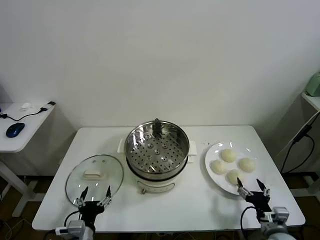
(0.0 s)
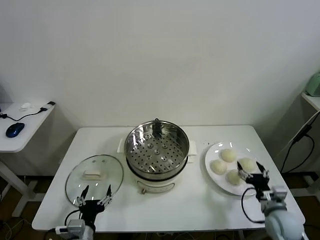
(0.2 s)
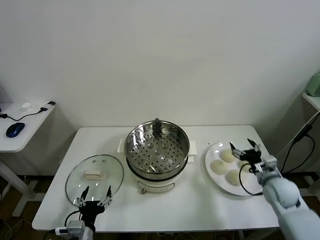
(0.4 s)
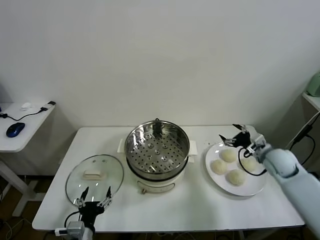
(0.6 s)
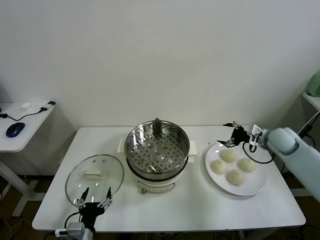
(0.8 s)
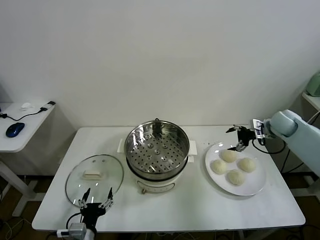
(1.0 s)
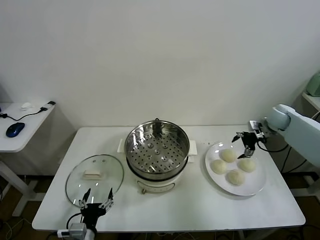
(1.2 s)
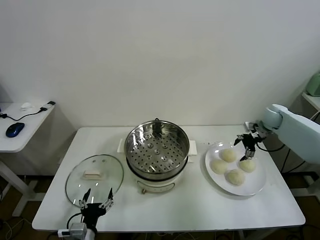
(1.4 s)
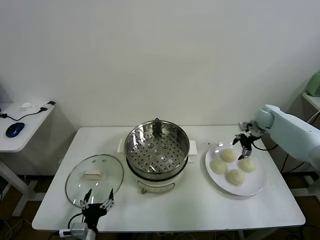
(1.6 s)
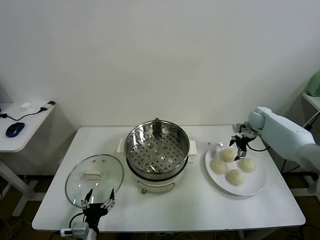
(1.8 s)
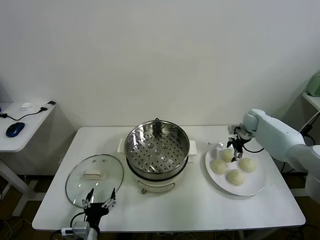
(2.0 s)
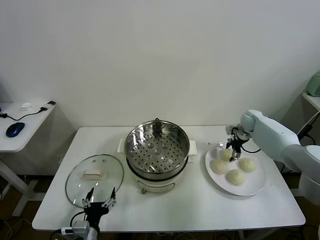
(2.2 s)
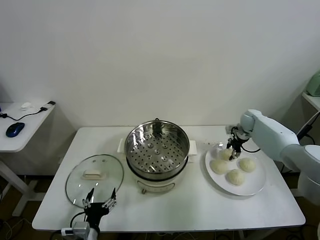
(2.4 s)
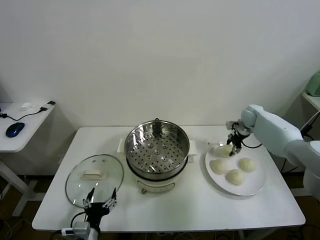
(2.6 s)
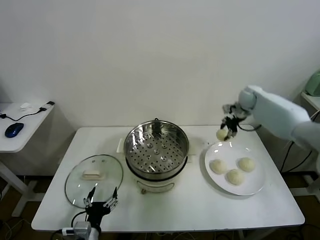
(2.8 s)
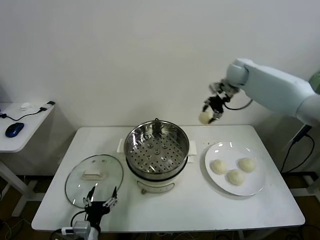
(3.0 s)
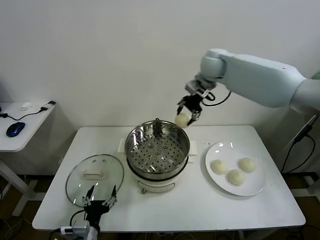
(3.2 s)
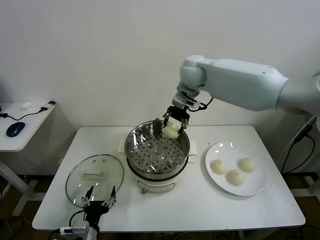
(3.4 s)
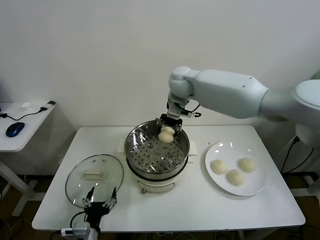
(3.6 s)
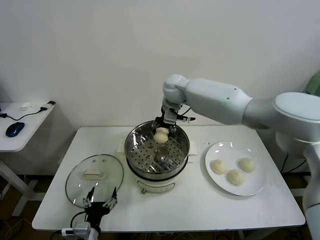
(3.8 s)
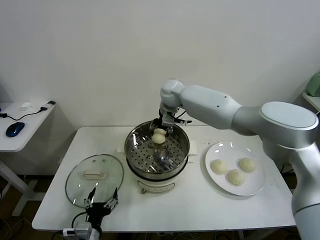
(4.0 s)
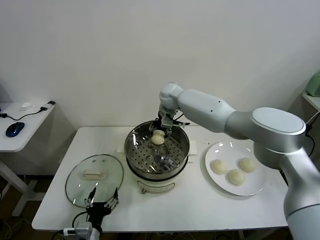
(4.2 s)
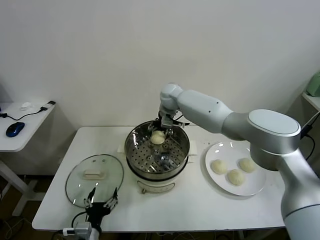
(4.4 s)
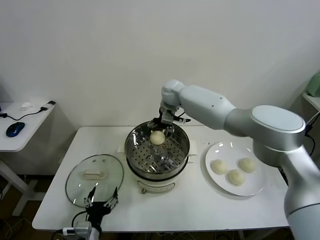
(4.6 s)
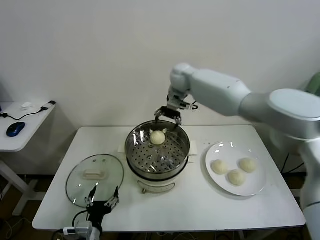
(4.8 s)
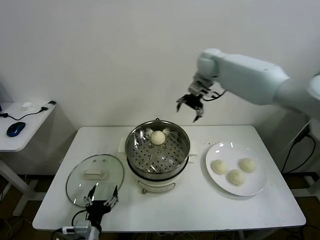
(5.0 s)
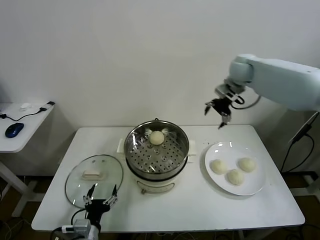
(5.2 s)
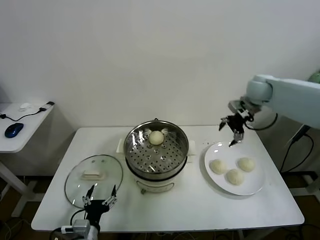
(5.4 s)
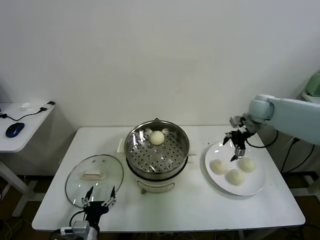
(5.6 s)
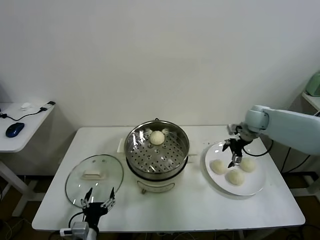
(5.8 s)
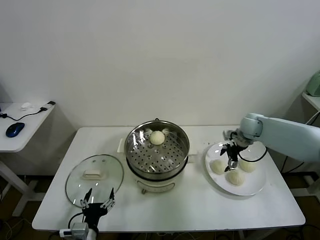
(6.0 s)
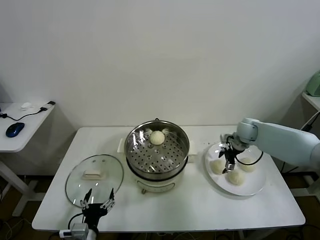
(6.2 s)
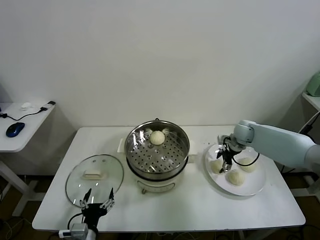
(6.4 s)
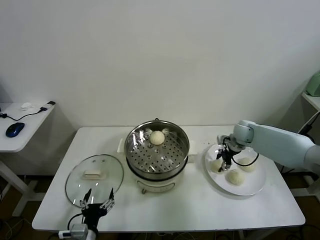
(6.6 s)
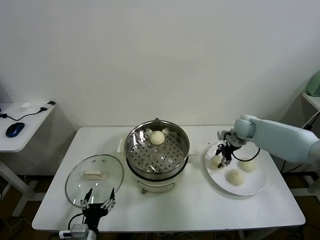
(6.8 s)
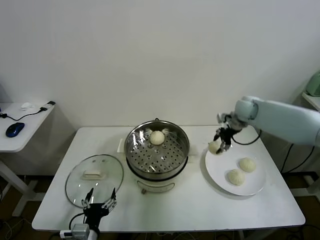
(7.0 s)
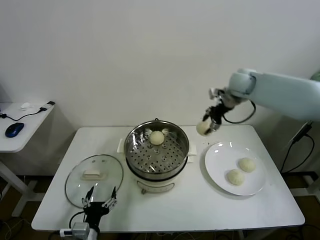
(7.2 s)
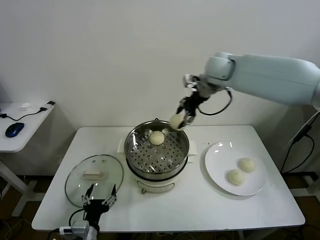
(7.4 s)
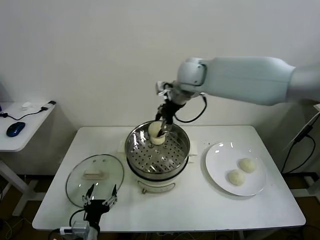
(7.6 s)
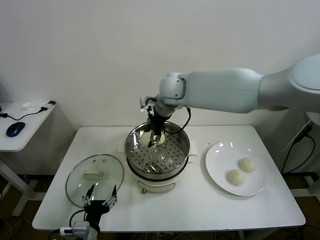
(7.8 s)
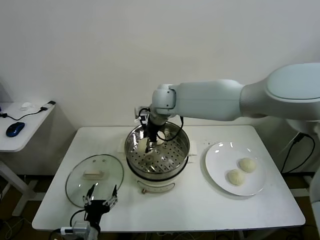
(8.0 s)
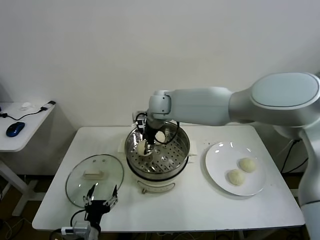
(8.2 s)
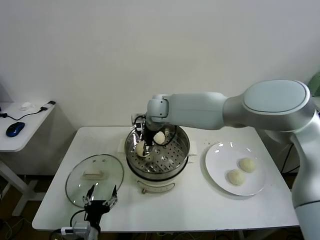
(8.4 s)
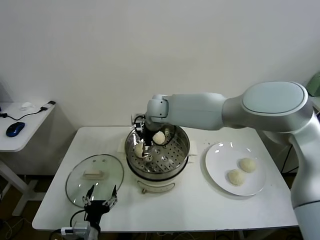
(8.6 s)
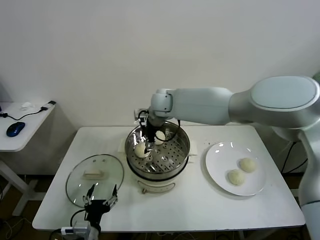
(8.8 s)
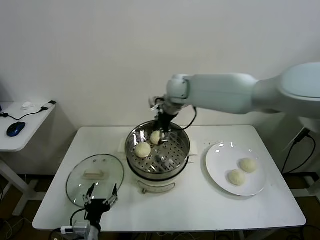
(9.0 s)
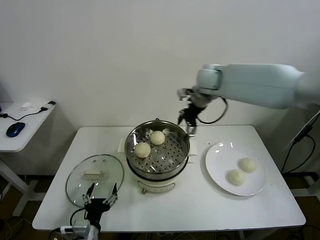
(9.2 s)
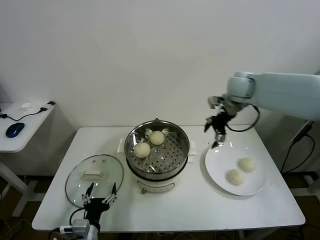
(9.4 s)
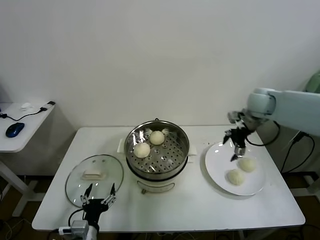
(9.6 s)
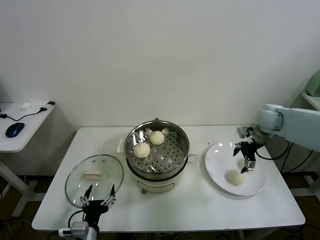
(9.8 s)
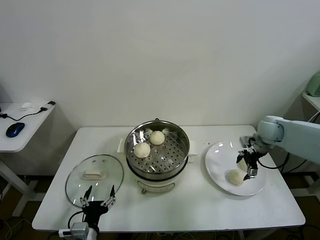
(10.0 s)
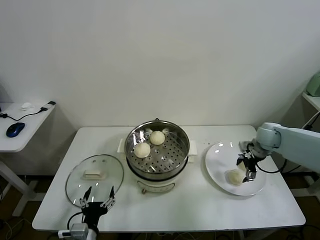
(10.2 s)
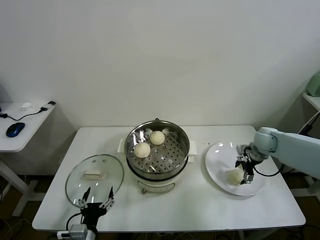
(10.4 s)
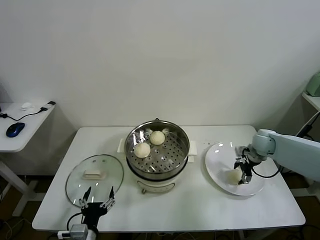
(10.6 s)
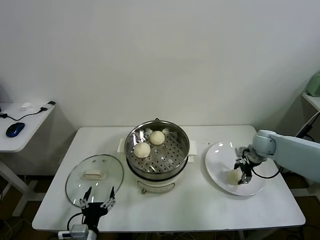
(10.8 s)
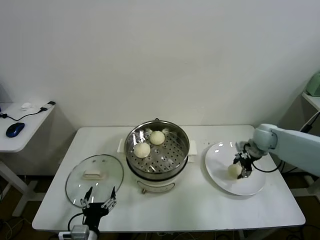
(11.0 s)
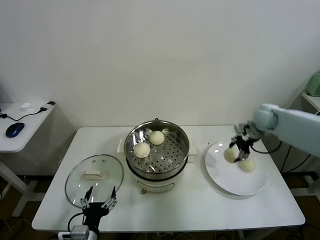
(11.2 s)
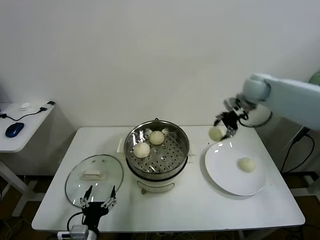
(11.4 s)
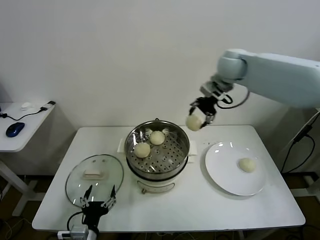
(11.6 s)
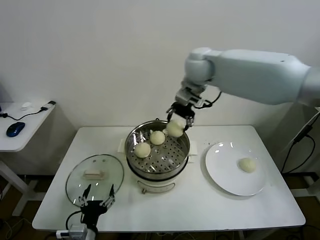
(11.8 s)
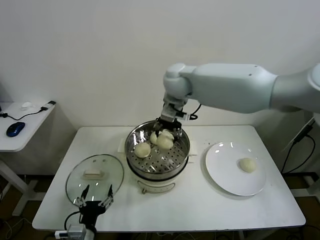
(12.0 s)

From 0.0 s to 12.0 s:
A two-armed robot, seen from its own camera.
Task of the whole recording: take steamed baozi put them in steamer.
Step, from 0.0 s to 2.4 s: Grasp the baozi in the plate with right gripper.
Step, from 2.6 s to 4.6 s: Place the baozi on the steamer with right gripper.
Step, from 4.8 s to 6.6 s: Grasp the baozi in the plate with right gripper.
Step, from 6.8 s to 8.8 s: Place the baozi on the steamer with right gripper.
Step, from 9.0 s to 10.6 s: Grasp the baozi in the plate with right gripper.
From 1.6 s to 3.0 s: The right gripper heads upward and to the left, covering some 25 cm, and closes.
From 3.0 s to 4.4 s: The right gripper shifts approximately 25 cm to the left and downward, and opens its fingers.
From 4.4 s to 6.0 s: The right gripper travels to the right by approximately 30 cm.
From 6.0 s to 7.6 s: The right gripper heads to the left and upward, covering approximately 35 cm, and closes.
From 7.6 s to 9.0 s: The right gripper is displaced downward by about 5 cm, and opens up.
From 9.0 s to 10.4 s: The right gripper moves to the right and downward, some 40 cm.
From 10.4 s to 12.0 s: The right gripper goes some 40 cm to the left and upward, and closes.

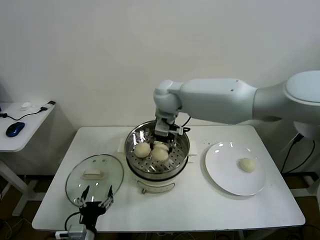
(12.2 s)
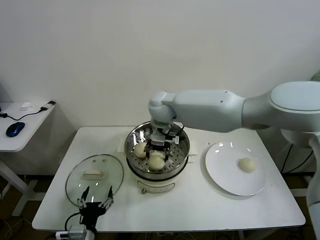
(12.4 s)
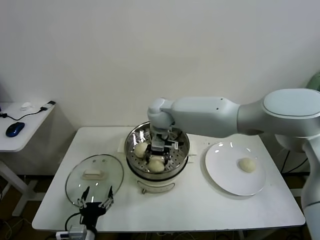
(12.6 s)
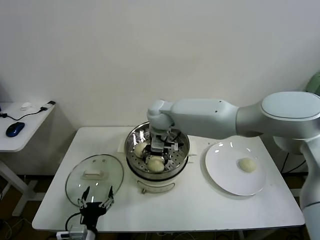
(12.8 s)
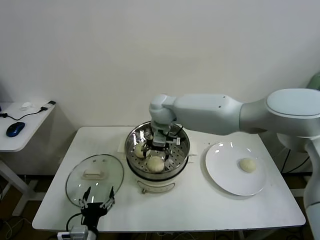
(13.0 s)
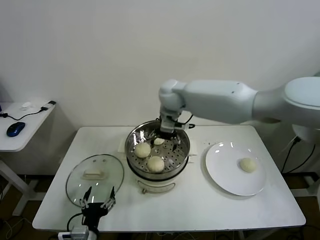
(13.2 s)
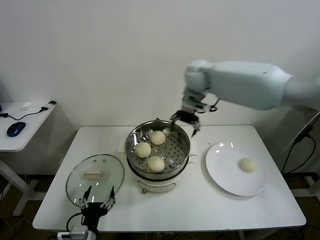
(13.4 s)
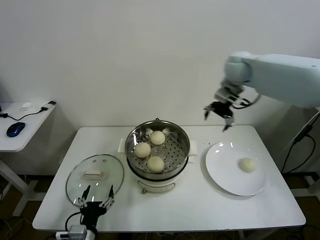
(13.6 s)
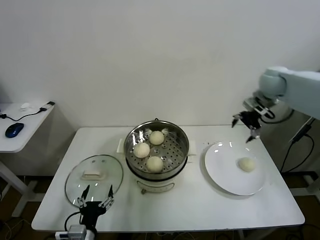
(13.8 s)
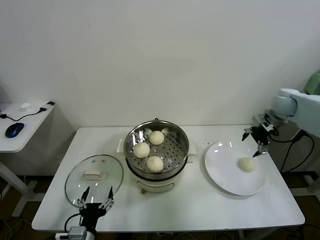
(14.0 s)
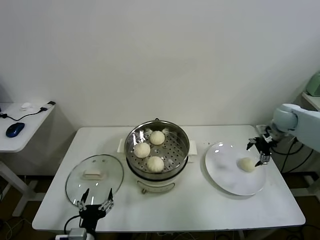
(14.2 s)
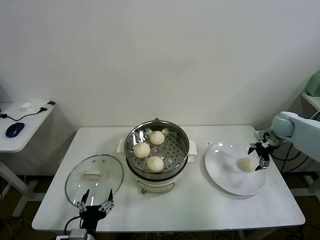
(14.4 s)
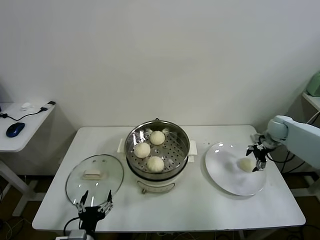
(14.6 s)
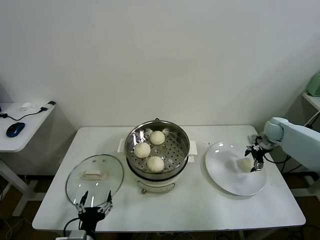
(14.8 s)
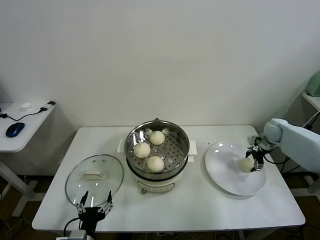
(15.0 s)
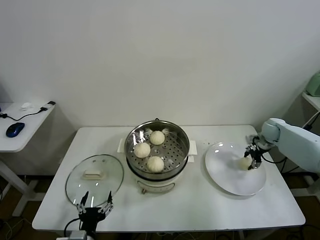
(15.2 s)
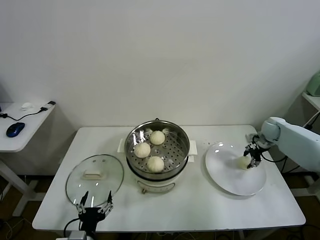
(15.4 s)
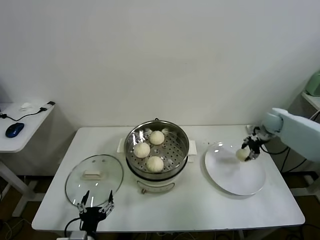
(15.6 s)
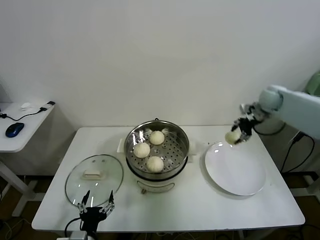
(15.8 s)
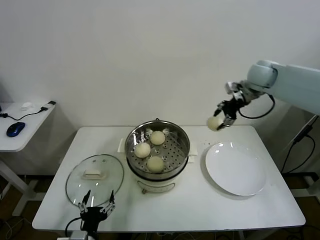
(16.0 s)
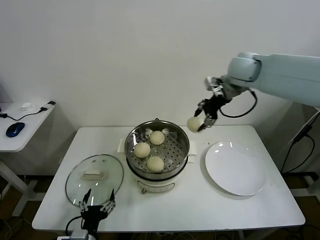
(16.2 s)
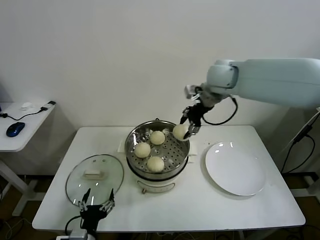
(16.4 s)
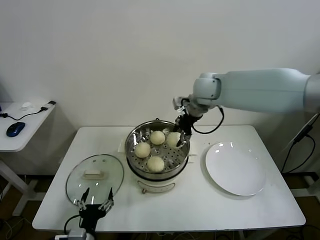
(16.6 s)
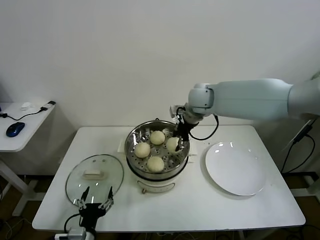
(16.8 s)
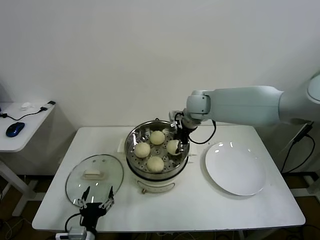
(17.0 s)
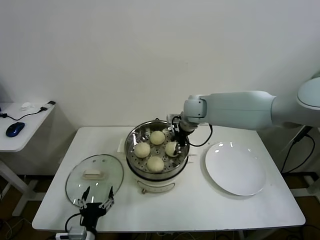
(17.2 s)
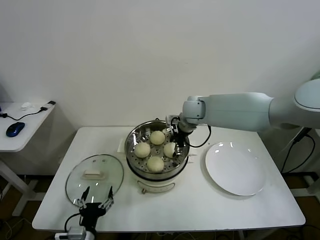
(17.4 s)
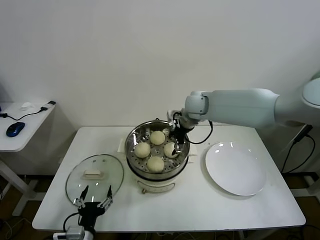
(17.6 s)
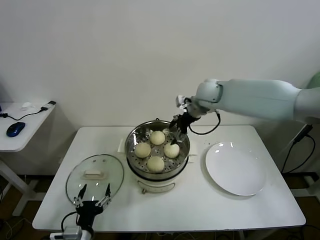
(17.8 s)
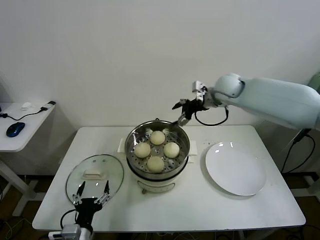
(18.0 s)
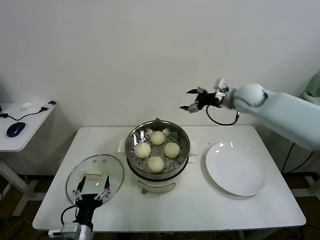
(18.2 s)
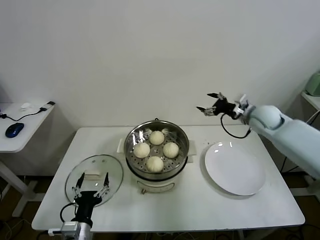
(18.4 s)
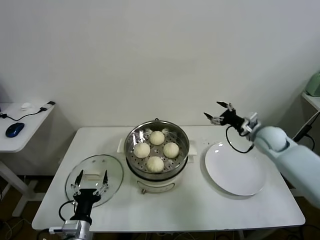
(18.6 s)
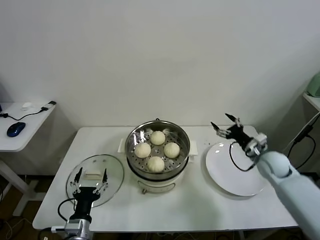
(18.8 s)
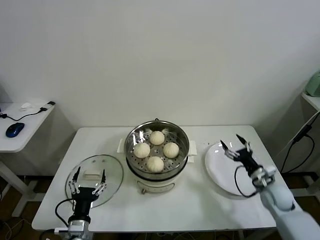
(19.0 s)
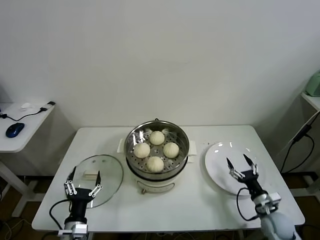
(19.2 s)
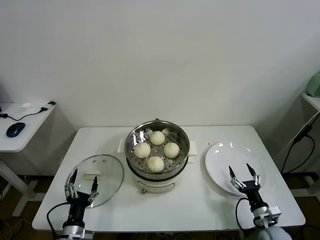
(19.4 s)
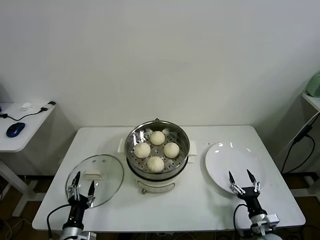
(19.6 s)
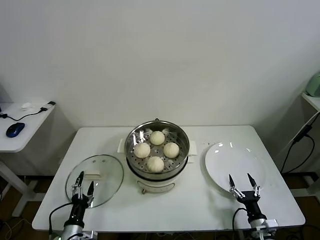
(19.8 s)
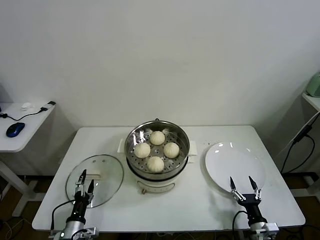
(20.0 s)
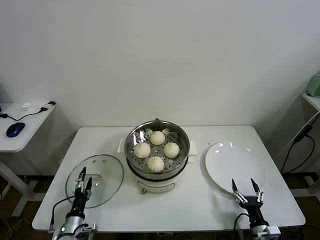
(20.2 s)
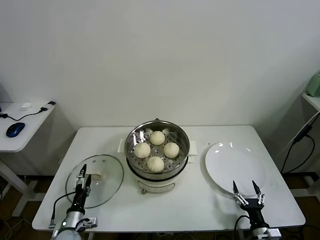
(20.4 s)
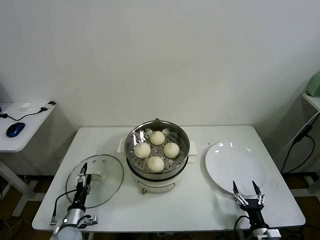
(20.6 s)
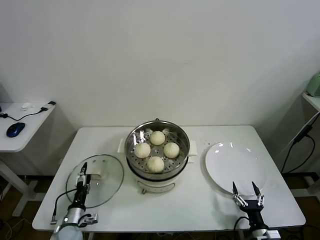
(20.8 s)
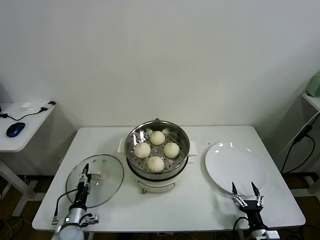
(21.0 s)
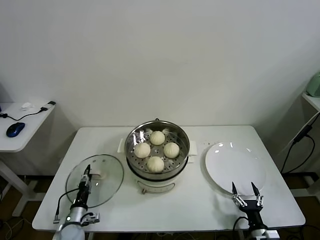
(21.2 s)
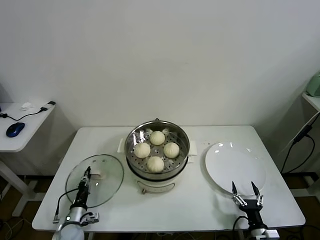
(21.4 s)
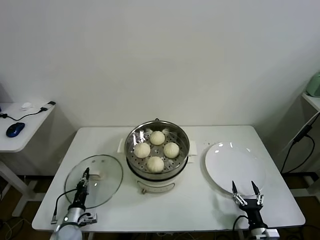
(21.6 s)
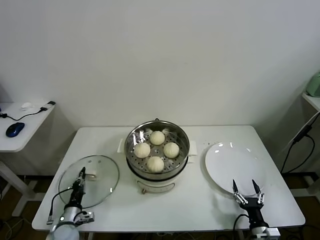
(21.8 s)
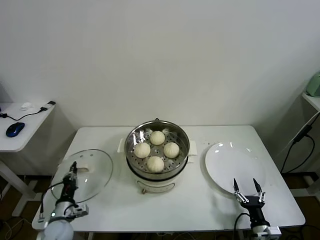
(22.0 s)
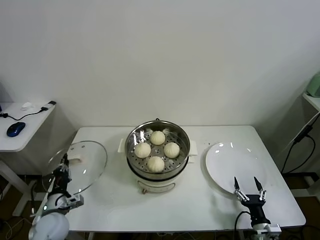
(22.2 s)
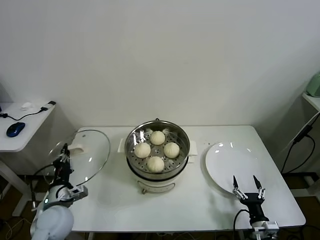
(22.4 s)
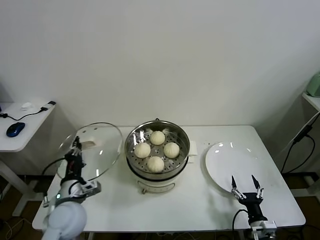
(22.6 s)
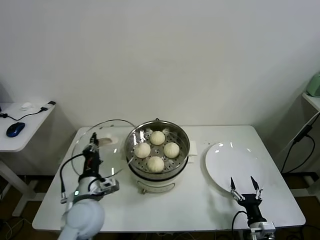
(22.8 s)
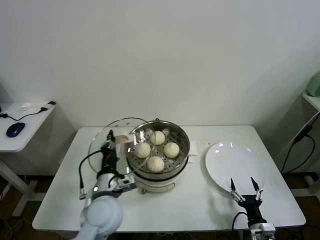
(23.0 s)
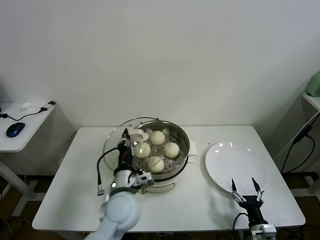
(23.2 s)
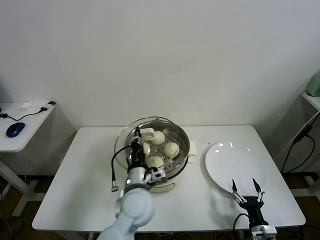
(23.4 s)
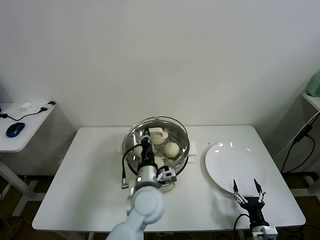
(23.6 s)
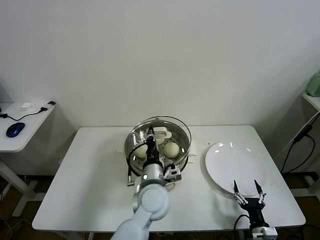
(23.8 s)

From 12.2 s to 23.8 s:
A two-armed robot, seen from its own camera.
Task of the whole recording: take steamed baozi put them in steamer.
Step, from 13.2 s to 15.2 s: Grasp the baozi in the plate with right gripper.
Step, from 15.4 s to 17.6 s: Place the baozi on the steamer with right gripper.
Step, from 17.8 s to 21.6 s: Grasp the pot lid with left gripper.
From 12.2 s to 13.6 s: The right gripper travels to the right by roughly 20 cm, and opens up.
From 13.6 s to 15.0 s: The right gripper is displaced downward and to the right by roughly 35 cm.
From 15.0 s to 16.6 s: The right gripper is displaced to the left and upward by about 40 cm, and closes up.
From 16.6 s to 18.0 s: The right gripper is displaced to the right by roughly 5 cm, goes downward and returns, about 10 cm each way, and opens its fingers.
From 18.0 s to 19.4 s: The right gripper is displaced downward, backward and to the right by about 50 cm. Meanwhile the left gripper shifts about 5 cm downward.
From 19.4 s to 21.0 s: The right gripper shifts about 5 cm backward; the left gripper shifts some 15 cm downward, forward and to the left.
From 21.0 s to 22.4 s: The left gripper moves upward, about 15 cm, and closes up.
From 22.4 s to 23.8 s: The left gripper travels to the right by some 30 cm.
